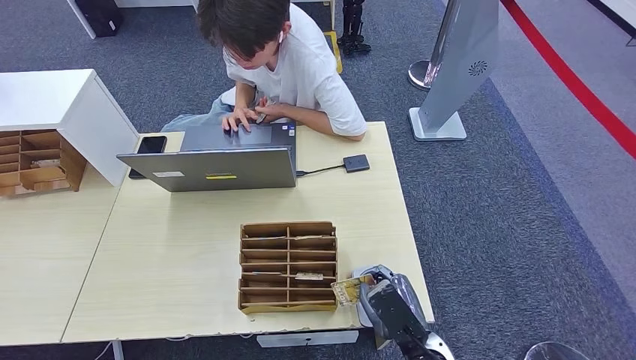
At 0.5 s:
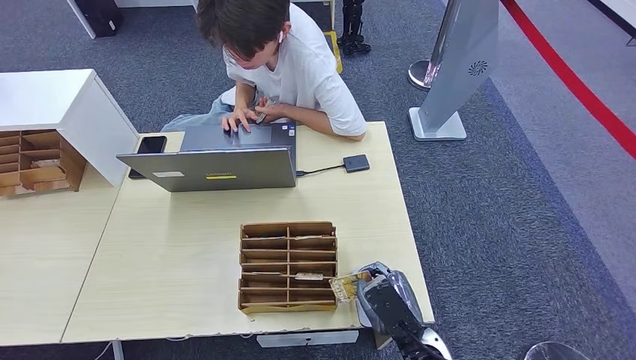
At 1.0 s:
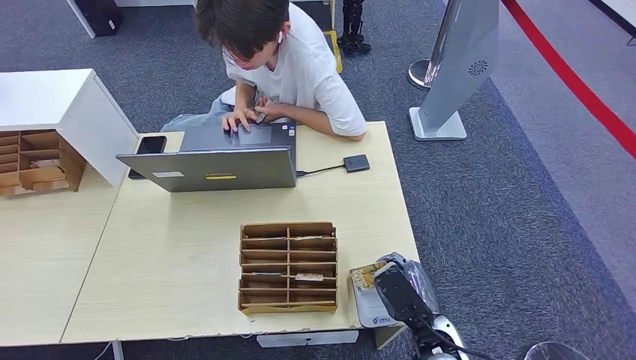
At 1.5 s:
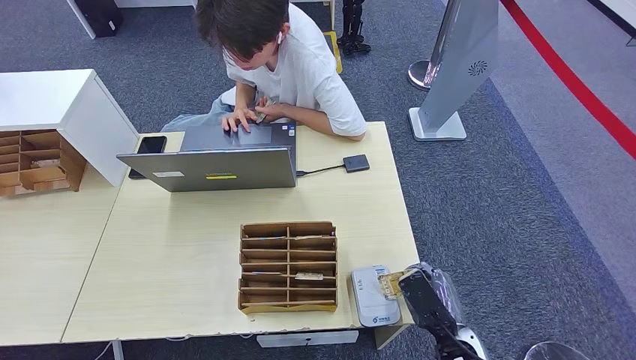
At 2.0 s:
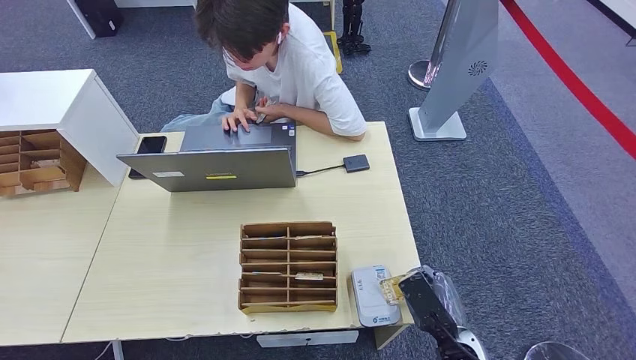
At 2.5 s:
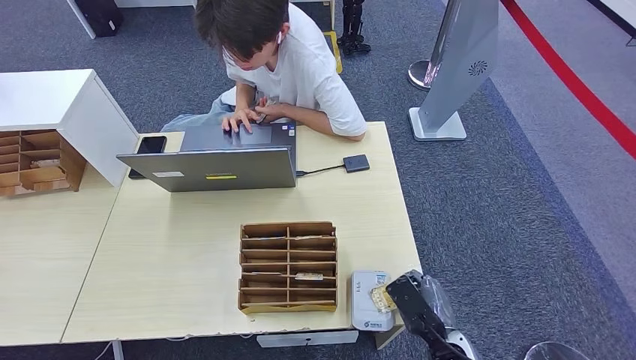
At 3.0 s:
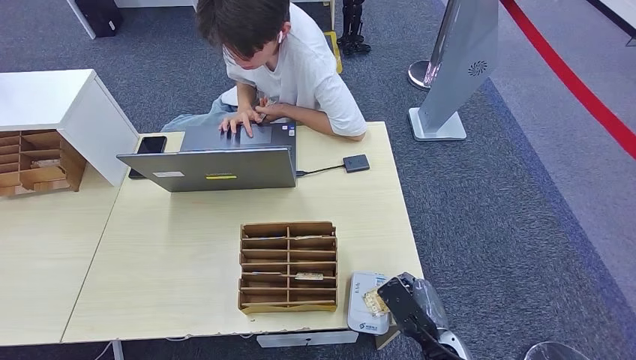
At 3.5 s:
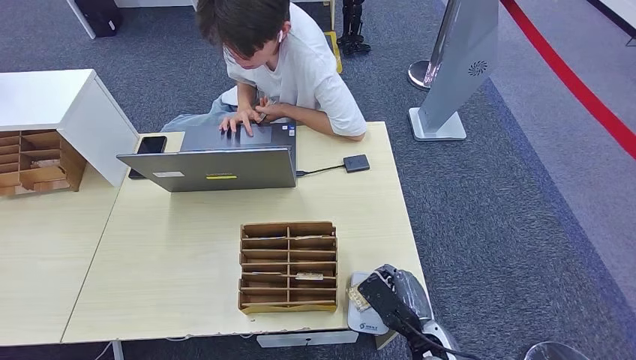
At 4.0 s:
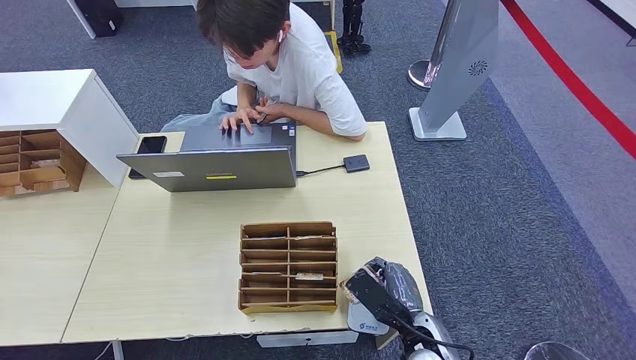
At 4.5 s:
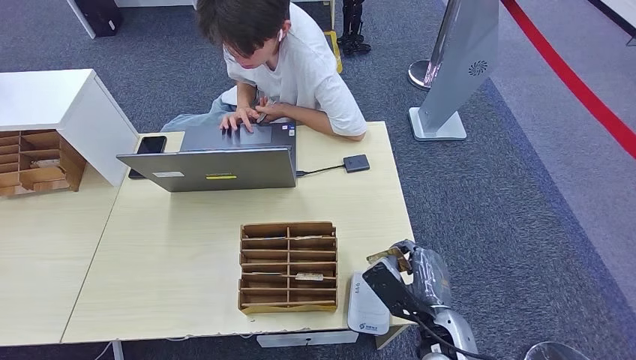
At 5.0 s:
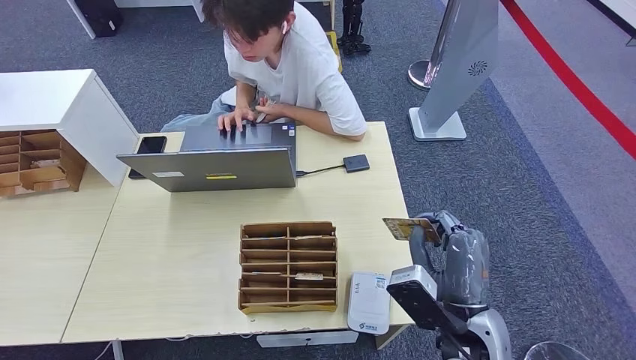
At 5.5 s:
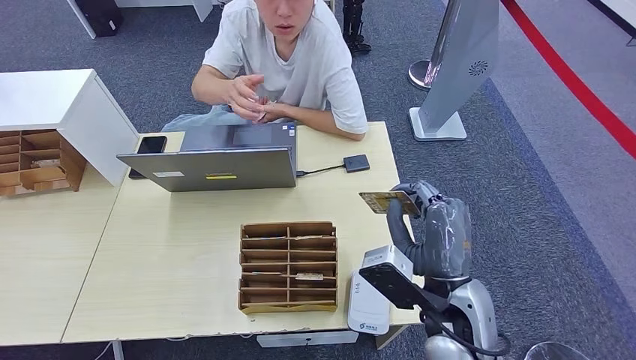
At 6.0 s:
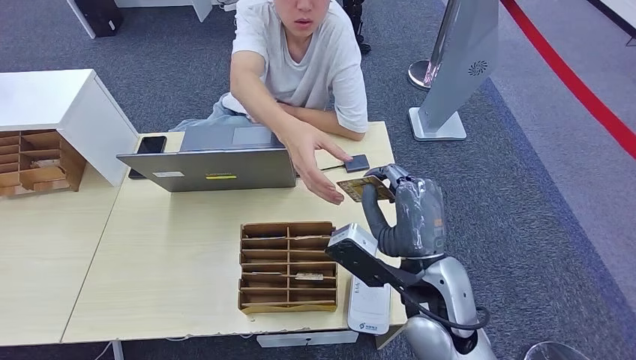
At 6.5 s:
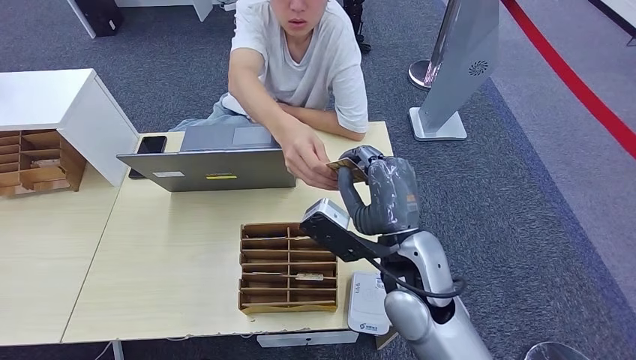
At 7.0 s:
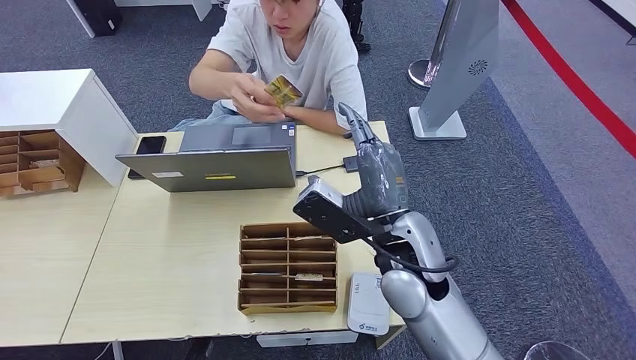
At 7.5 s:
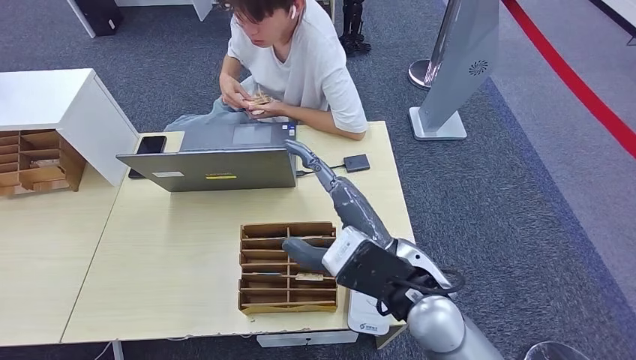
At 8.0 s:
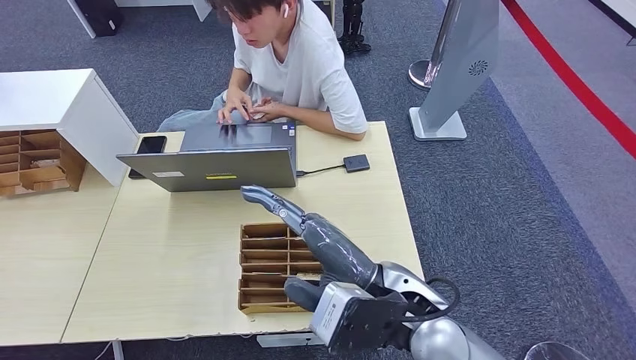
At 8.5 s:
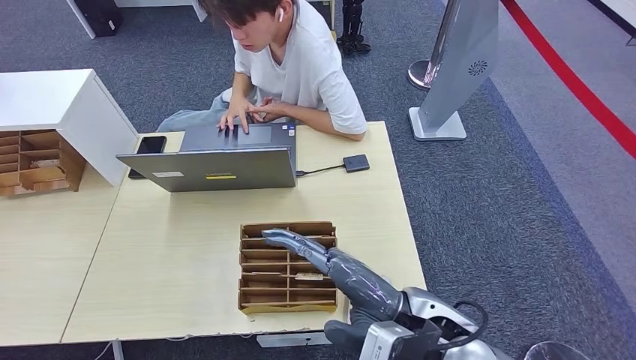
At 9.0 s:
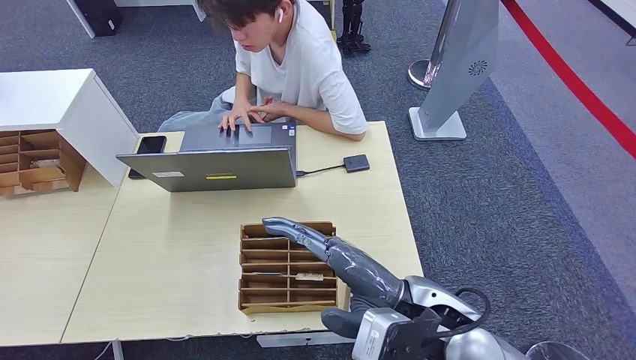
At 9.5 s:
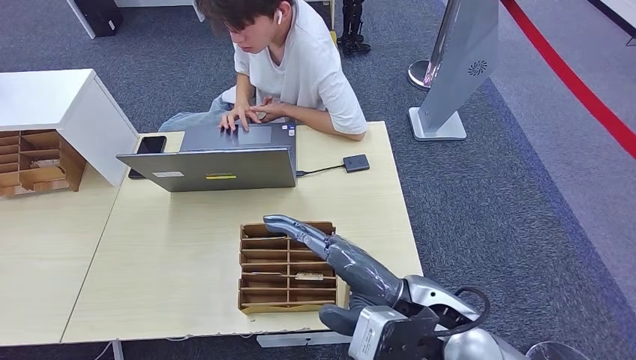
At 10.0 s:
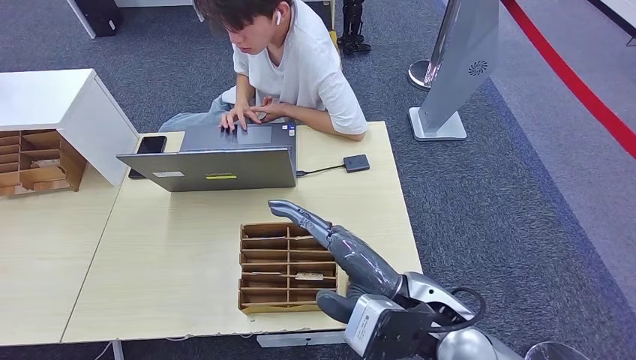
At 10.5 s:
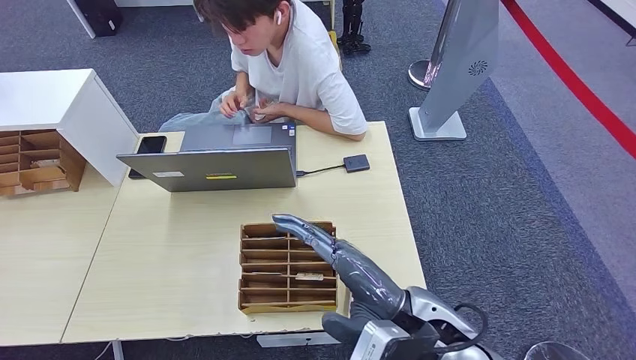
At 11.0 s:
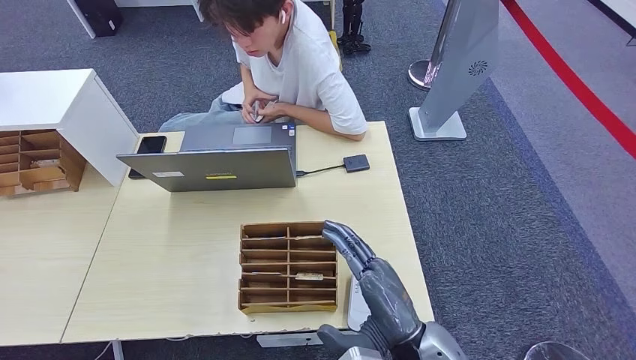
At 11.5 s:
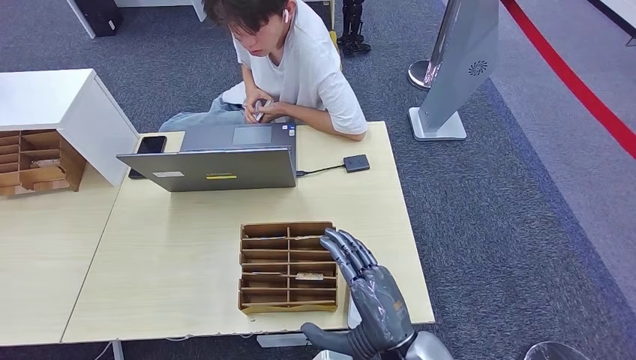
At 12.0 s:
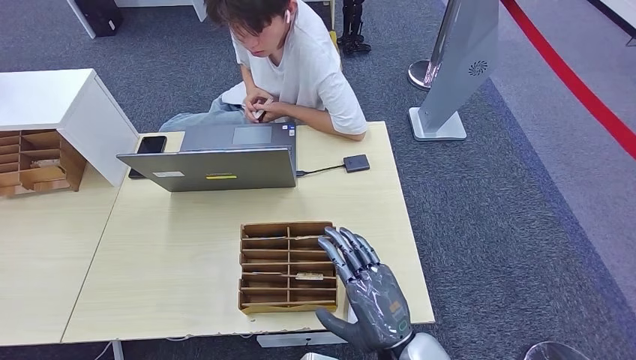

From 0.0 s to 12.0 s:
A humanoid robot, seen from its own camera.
Step, from 1.5 s to 7.0 s: Hand the ID card to the person.
From 0.0 s to 2.0 s: The right hand travels to the right by roughly 5 cm.
From 2.0 s to 4.0 s: The right hand goes about 5 cm to the left.
From 4.0 s to 6.0 s: The right hand travels upward by approximately 15 cm.
From 6.0 s to 8.0 s: The right hand moves approximately 5 cm. The left hand reaches approximately 5 cm forward, then returns.
From 8.0 s to 10.0 s: The hands make only small movements.
From 10.0 s to 12.0 s: The right hand goes some 10 cm downward and backward.

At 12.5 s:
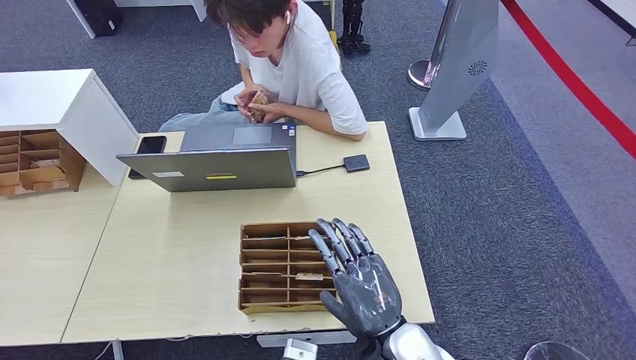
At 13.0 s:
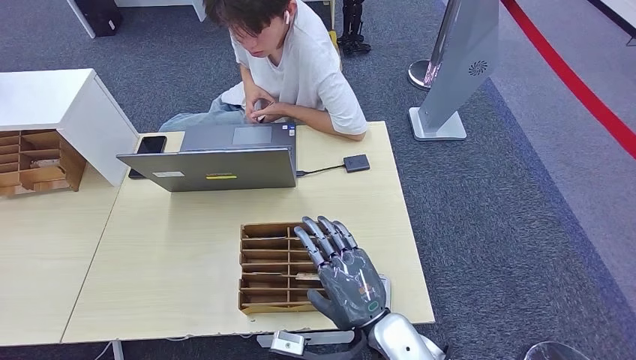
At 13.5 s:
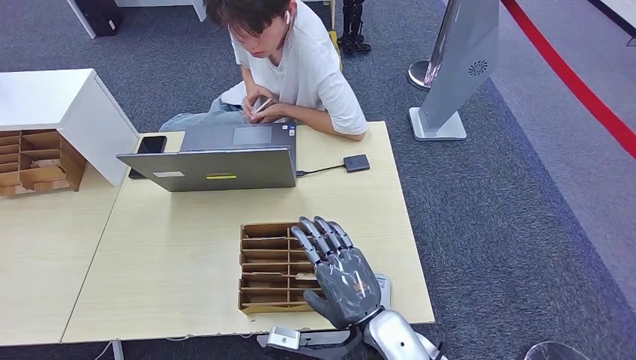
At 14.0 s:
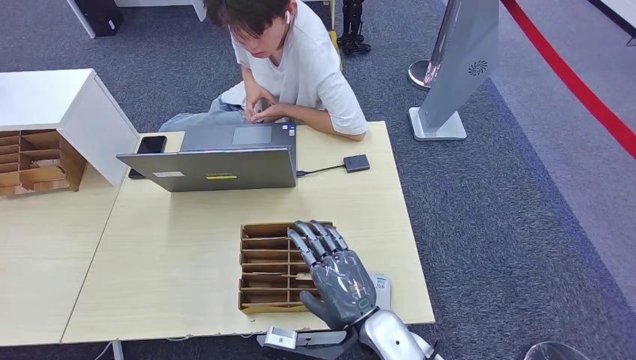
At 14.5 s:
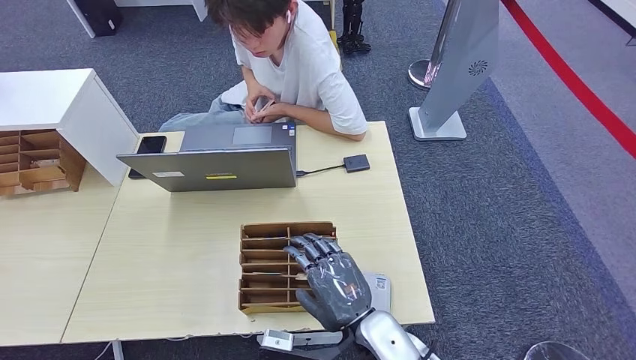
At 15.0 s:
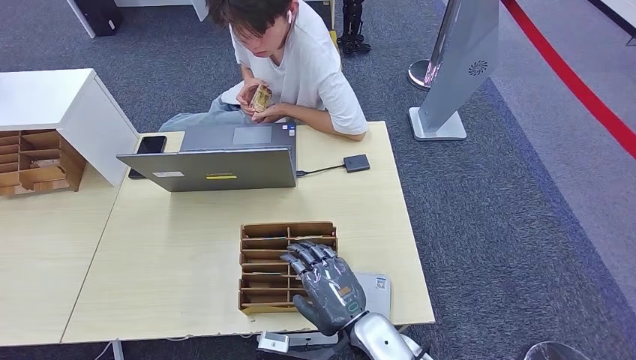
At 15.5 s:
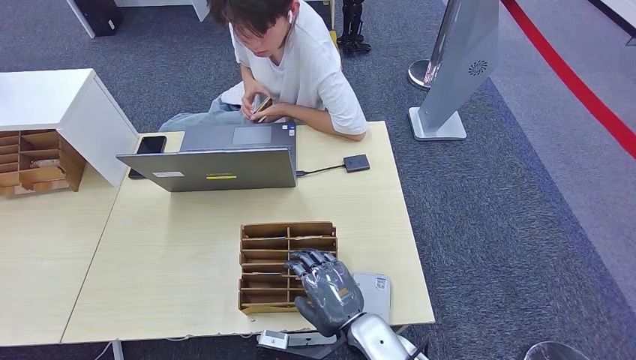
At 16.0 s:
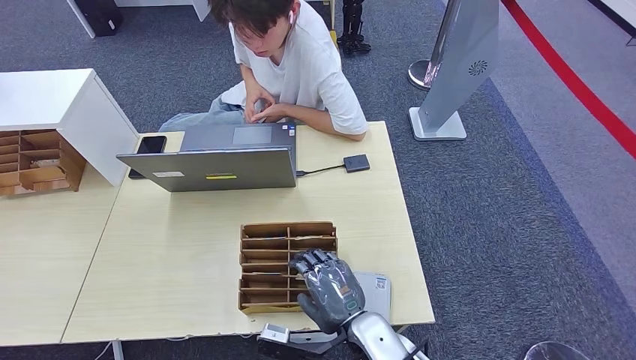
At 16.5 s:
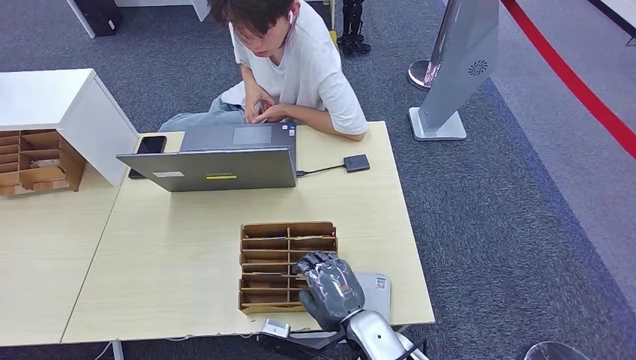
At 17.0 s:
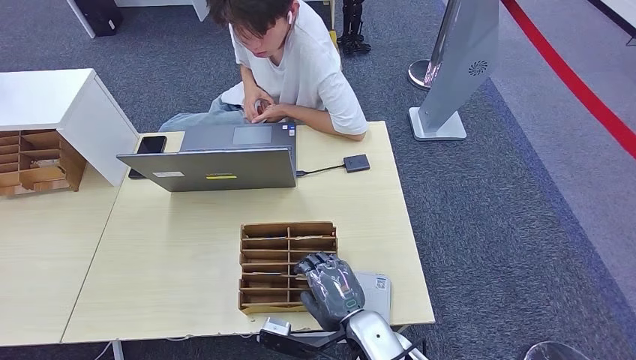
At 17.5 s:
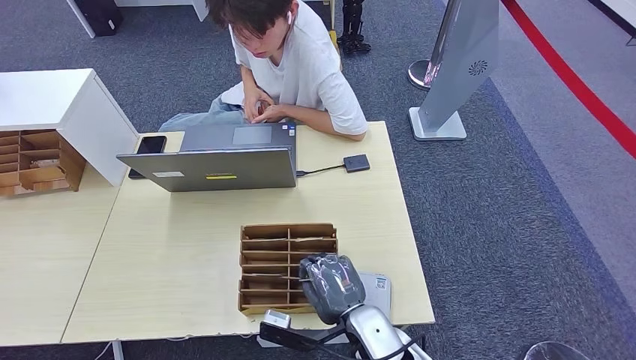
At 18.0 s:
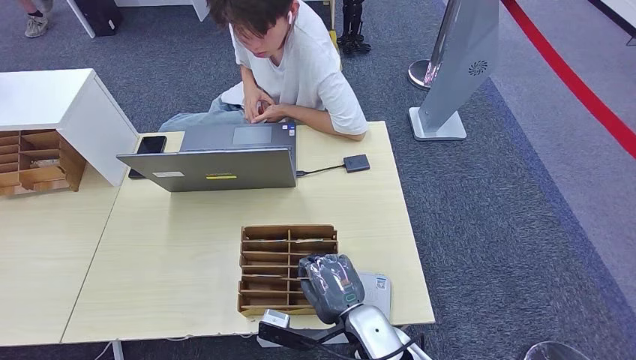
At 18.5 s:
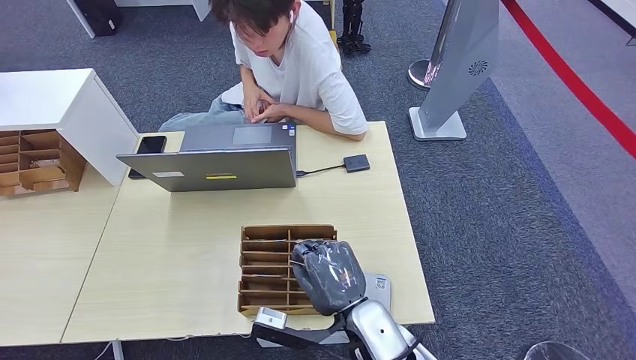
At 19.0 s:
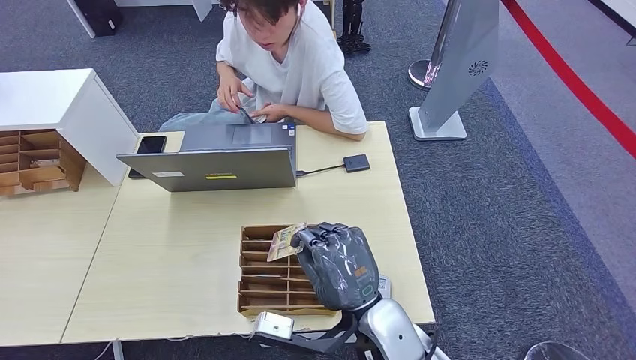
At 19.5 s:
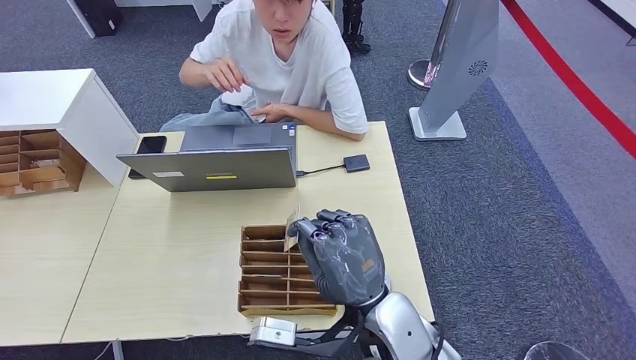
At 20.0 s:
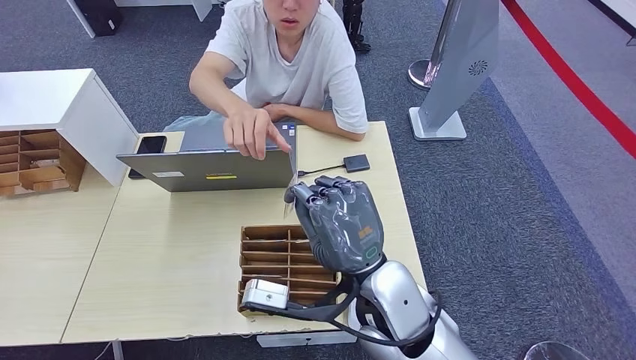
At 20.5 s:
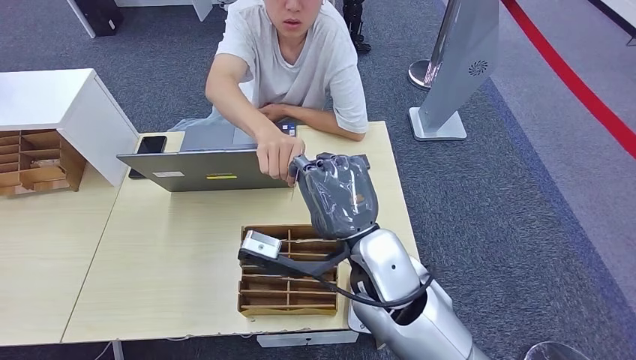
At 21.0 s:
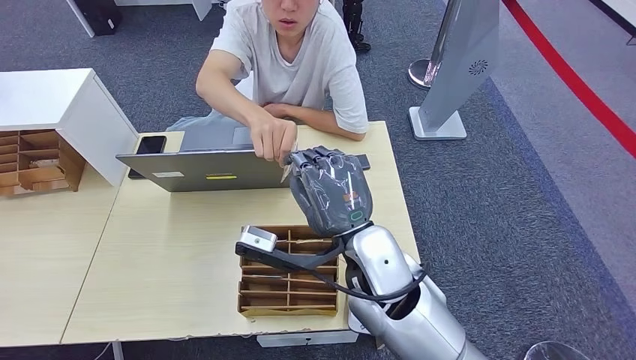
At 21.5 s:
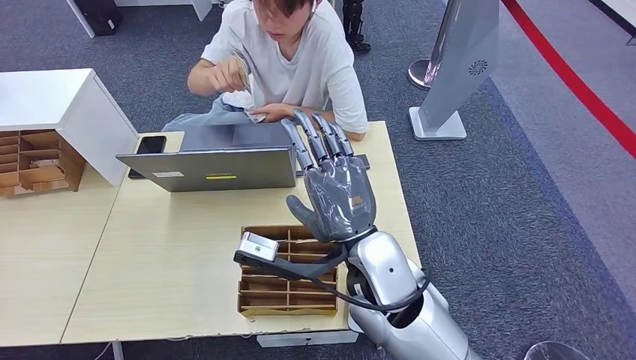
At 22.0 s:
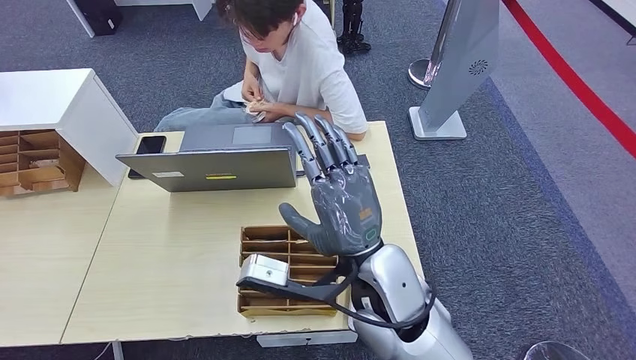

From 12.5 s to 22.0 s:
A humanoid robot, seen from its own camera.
Step, from 12.5 s to 18.0 s: Pick up the room key from the key card box.
Step, from 18.5 s to 22.0 s: Hand the room key to the person.
From 12.5 s to 14.5 s: There are only small adjustments of the hands.
From 14.5 s to 16.5 s: The hands stay close to where they were, moving slightly.
From 16.5 s to 18.0 s: Neither hand changes place.
From 18.0 s to 20.0 s: The right hand travels upward by some 15 cm.
From 20.0 s to 22.0 s: The hands make only small movements.
